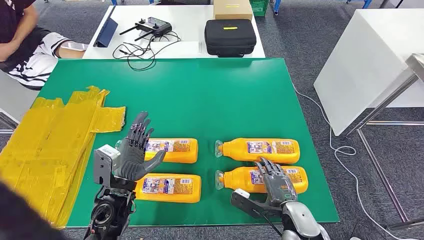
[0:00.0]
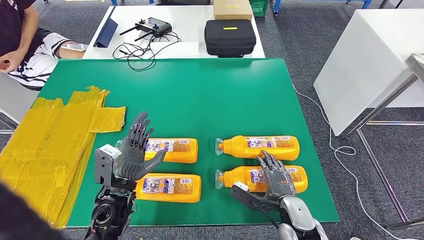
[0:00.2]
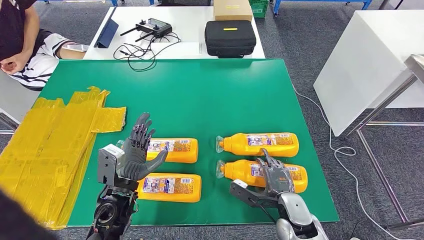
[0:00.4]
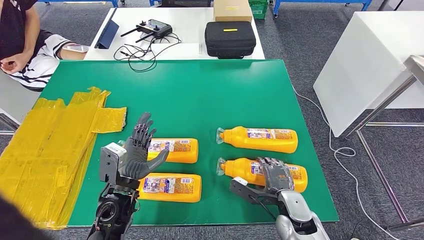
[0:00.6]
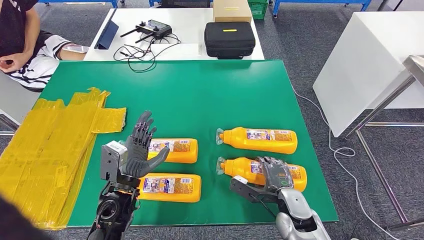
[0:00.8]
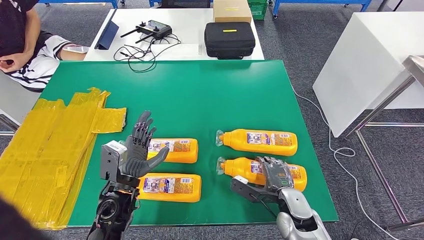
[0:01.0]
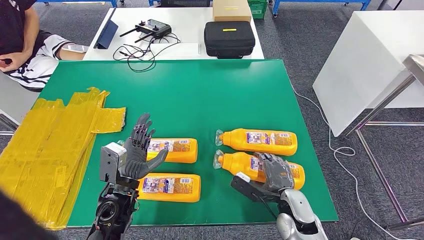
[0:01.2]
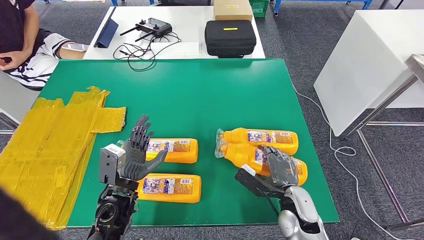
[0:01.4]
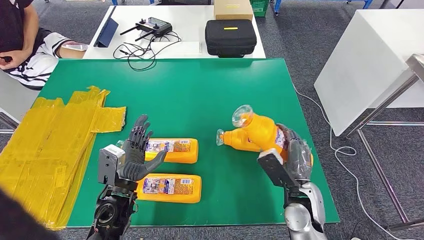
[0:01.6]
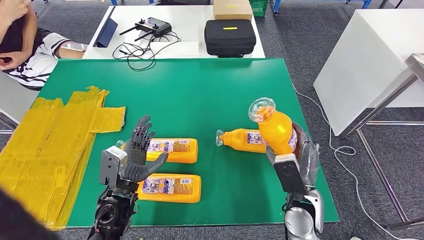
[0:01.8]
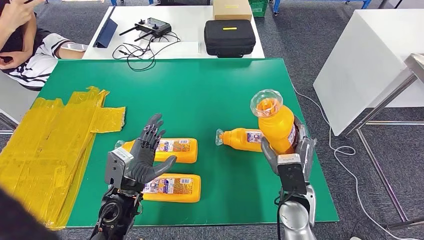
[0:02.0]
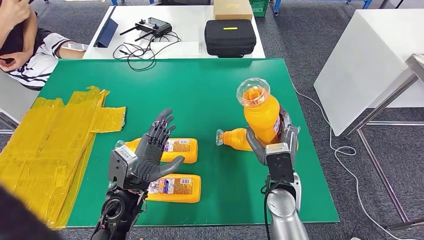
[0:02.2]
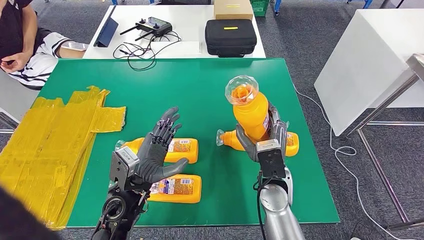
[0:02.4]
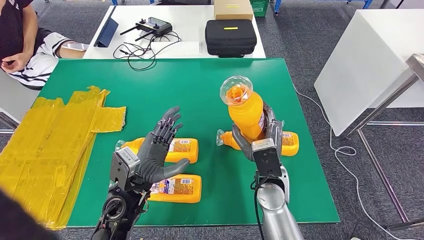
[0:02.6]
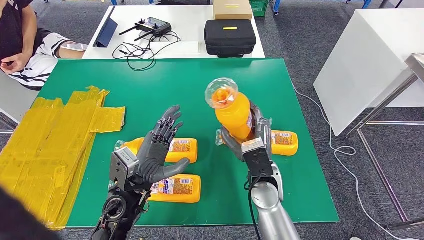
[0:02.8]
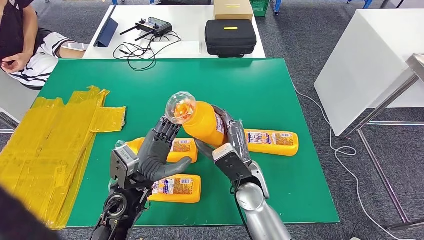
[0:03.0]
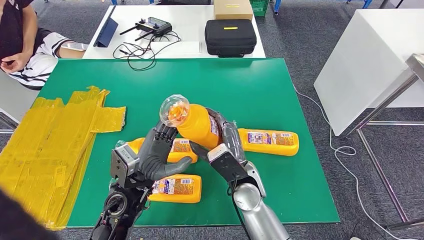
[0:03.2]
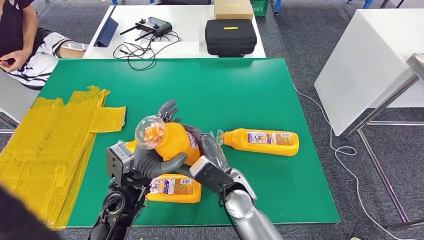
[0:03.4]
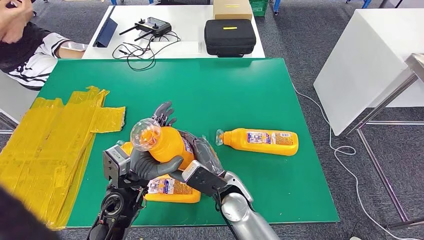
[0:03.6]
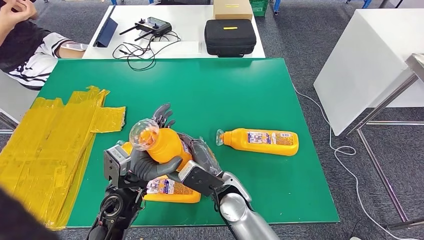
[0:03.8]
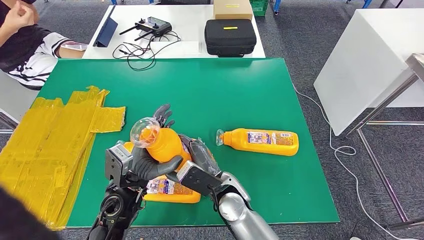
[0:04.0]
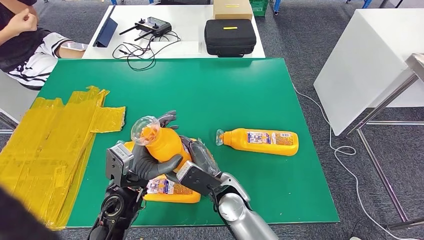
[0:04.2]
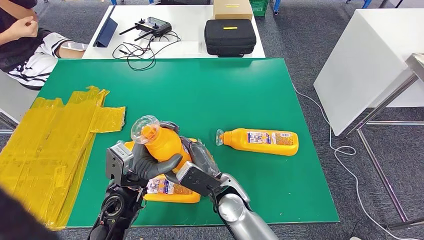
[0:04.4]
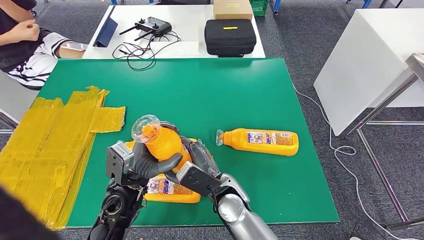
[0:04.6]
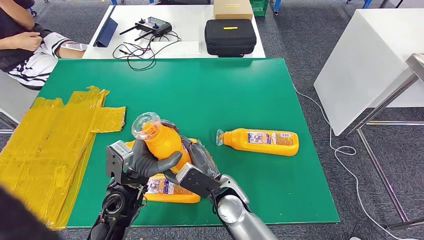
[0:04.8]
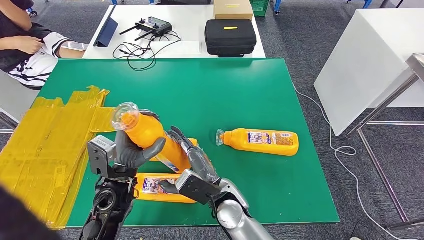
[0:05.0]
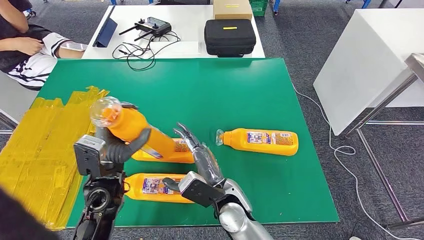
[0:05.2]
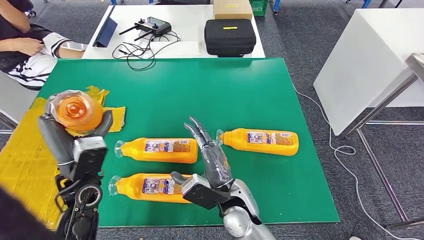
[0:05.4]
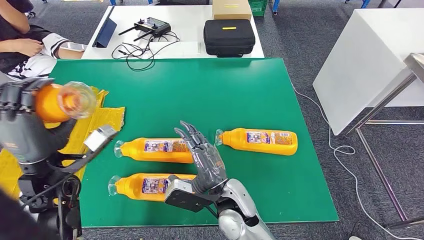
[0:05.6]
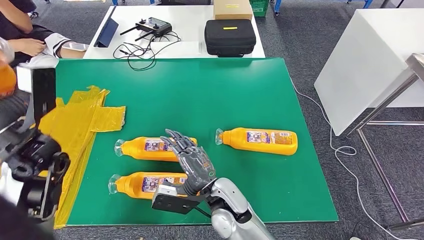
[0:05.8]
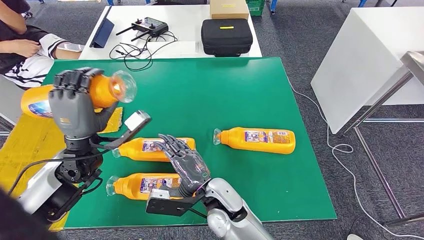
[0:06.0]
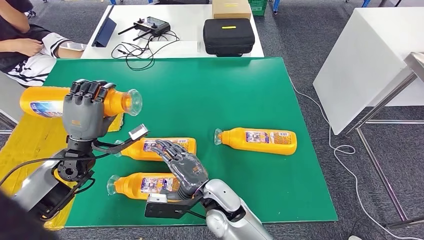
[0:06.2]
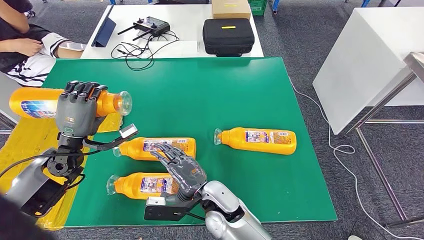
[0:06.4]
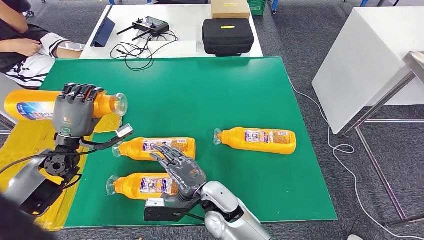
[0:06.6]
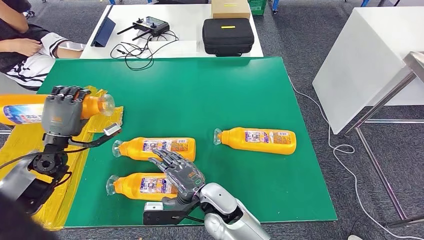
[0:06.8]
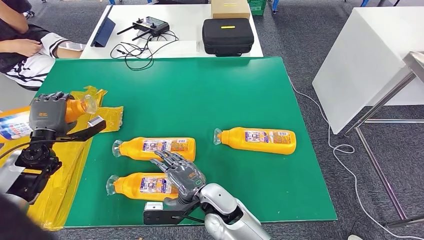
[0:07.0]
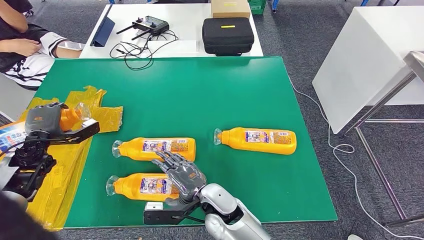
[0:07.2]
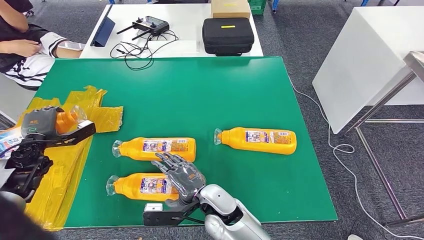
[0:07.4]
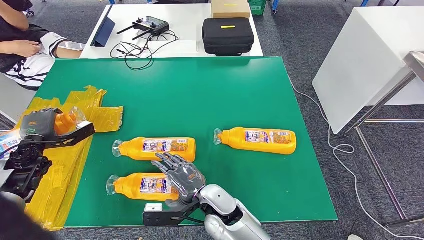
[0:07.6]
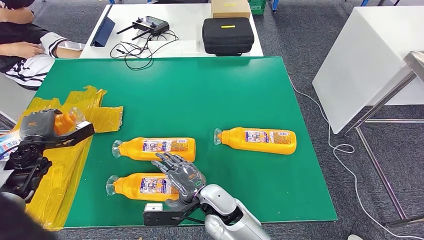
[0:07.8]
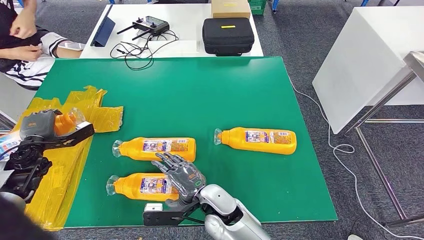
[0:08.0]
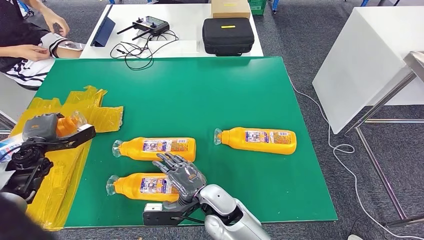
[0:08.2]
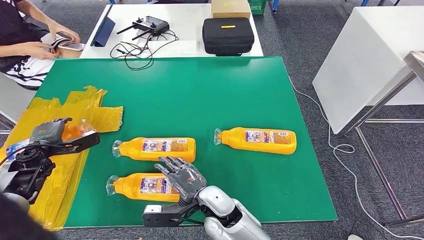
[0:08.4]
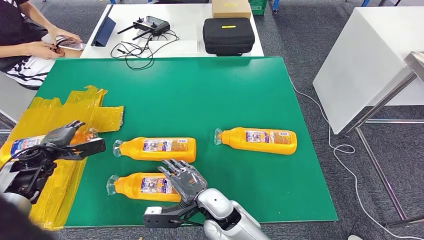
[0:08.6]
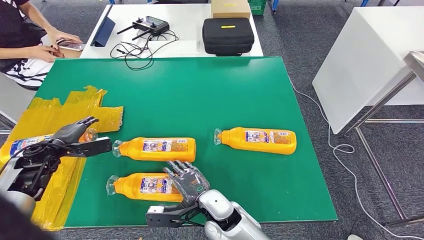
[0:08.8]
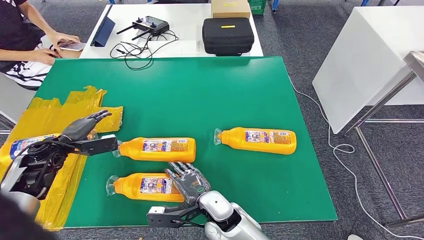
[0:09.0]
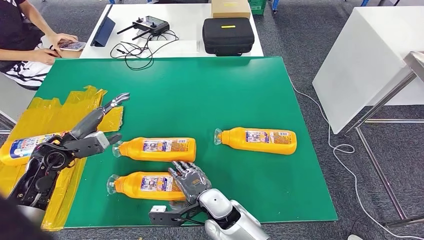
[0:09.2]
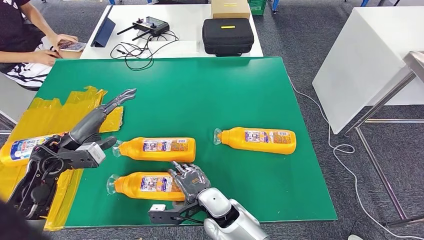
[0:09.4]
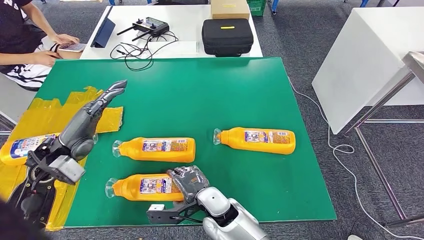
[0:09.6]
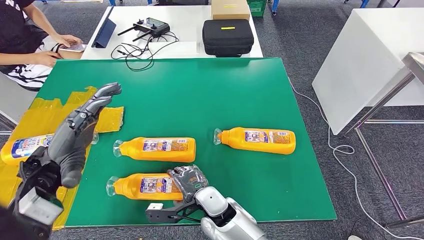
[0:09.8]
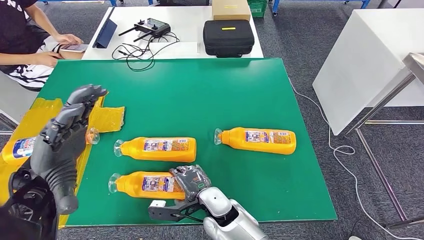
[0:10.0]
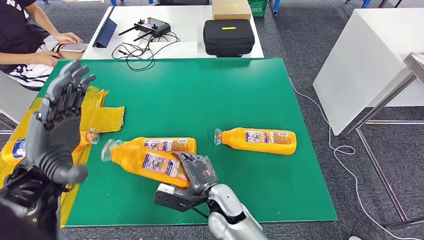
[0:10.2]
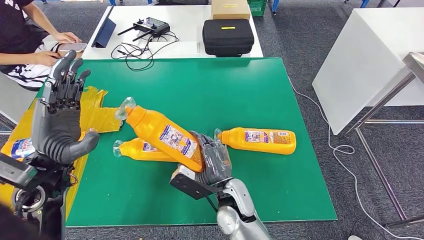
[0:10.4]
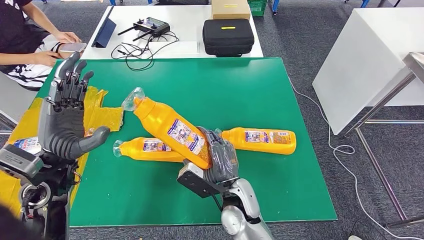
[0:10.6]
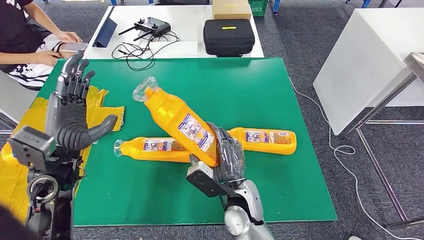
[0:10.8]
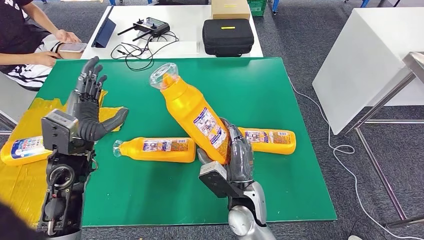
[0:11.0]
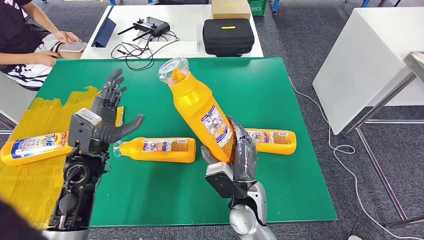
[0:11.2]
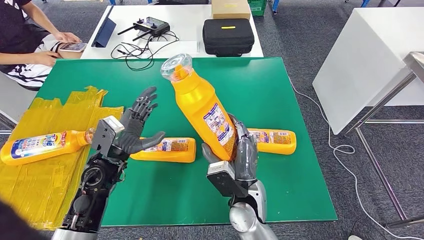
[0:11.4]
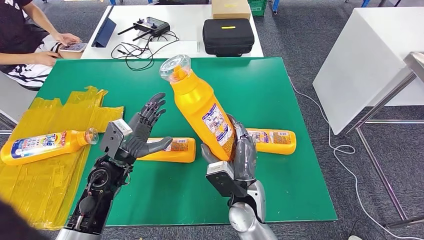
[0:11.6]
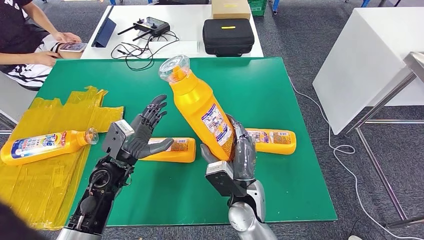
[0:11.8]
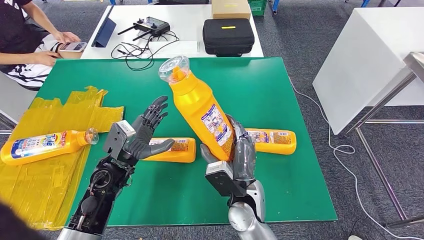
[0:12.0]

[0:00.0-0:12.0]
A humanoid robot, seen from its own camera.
Step, 0:00.0 to 0:02.8: Take the fast-moving consumer goods bottle from the table.
Step, 0:03.4 to 0:09.4: Flip the fast-moving consumer goods bottle to the front side.
0:01.6 to 0:03.0: The left hand moves approximately 5 cm, while the right hand goes some 15 cm to the left.
0:03.0 to 0:04.4: The right hand changes place by approximately 5 cm.

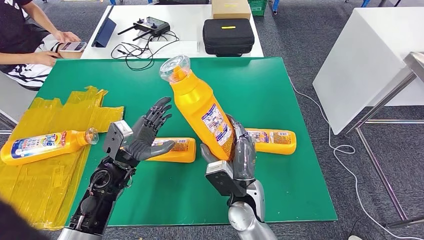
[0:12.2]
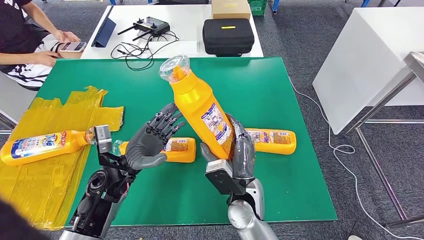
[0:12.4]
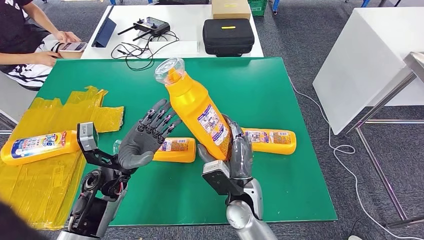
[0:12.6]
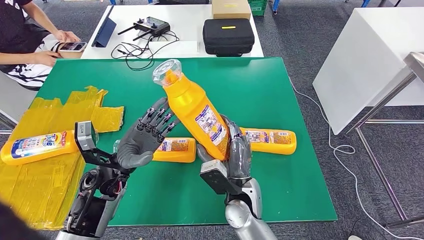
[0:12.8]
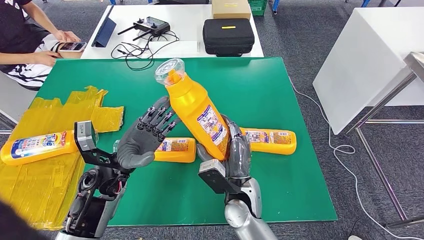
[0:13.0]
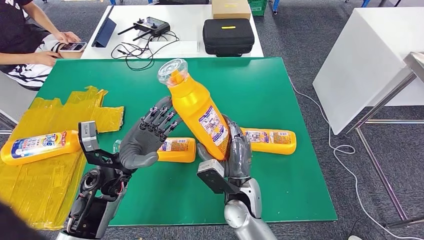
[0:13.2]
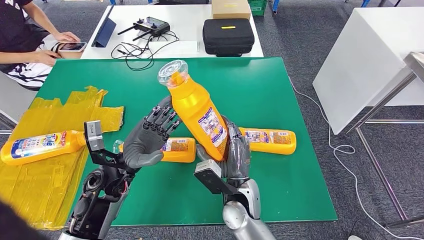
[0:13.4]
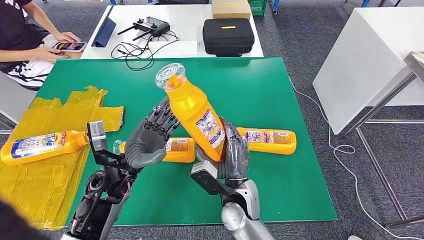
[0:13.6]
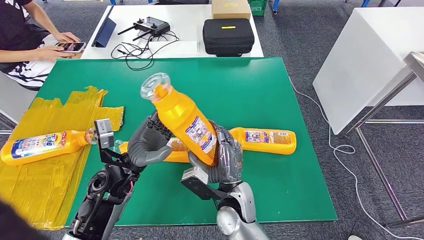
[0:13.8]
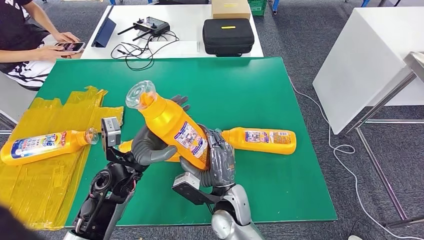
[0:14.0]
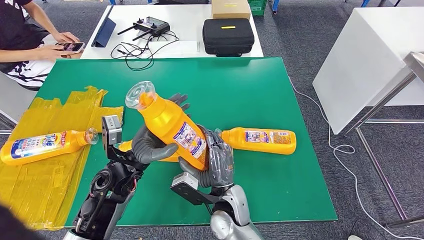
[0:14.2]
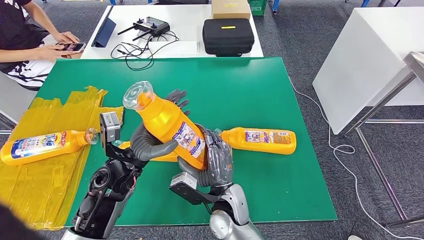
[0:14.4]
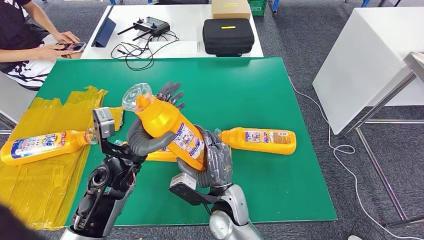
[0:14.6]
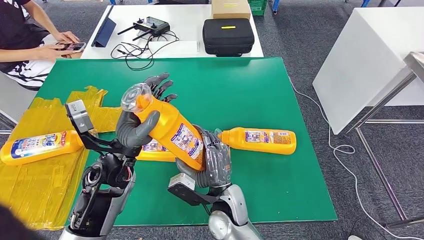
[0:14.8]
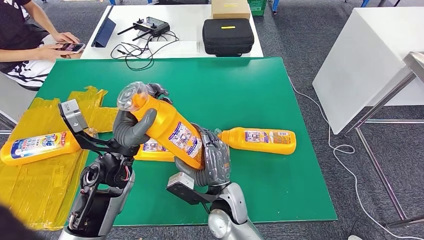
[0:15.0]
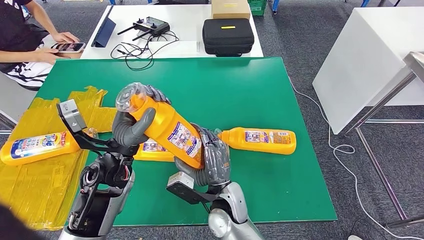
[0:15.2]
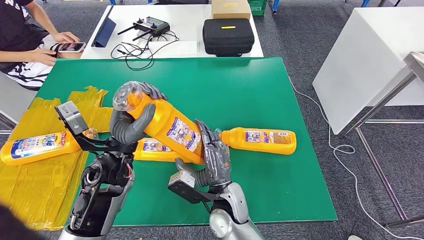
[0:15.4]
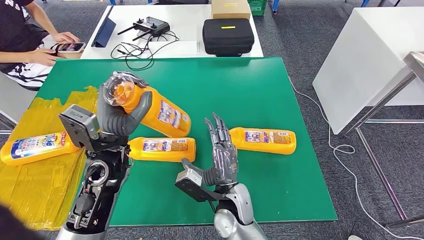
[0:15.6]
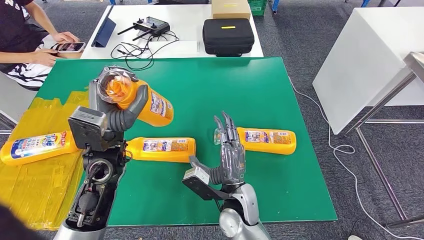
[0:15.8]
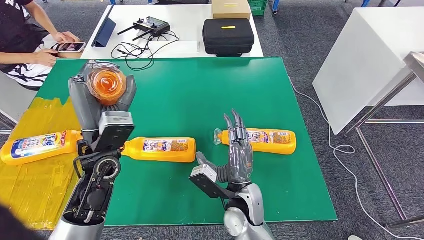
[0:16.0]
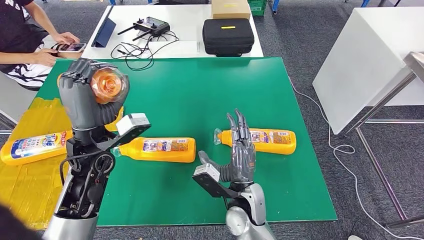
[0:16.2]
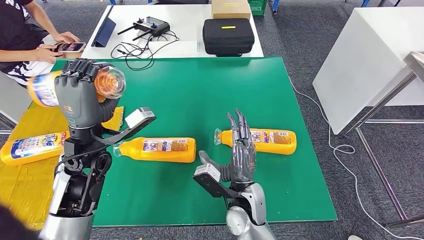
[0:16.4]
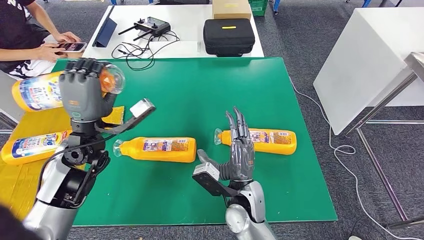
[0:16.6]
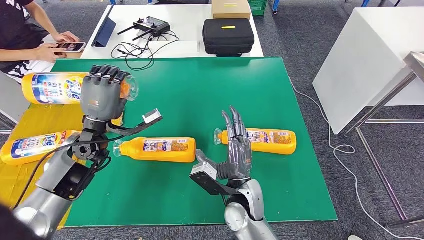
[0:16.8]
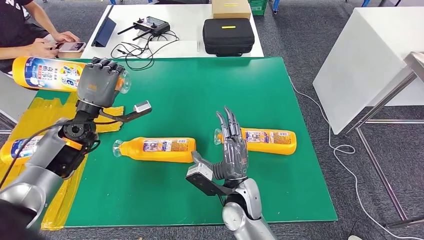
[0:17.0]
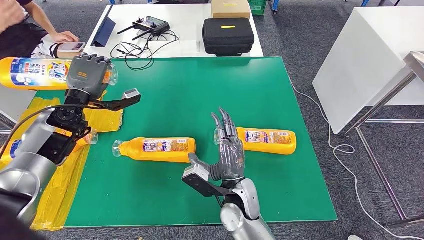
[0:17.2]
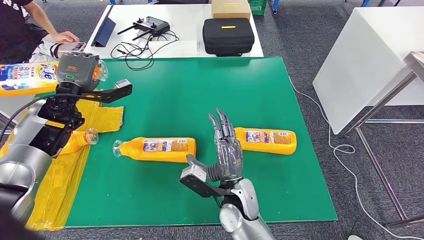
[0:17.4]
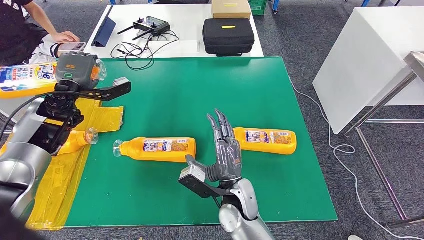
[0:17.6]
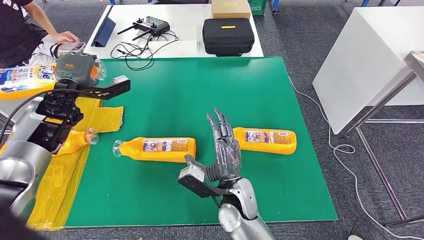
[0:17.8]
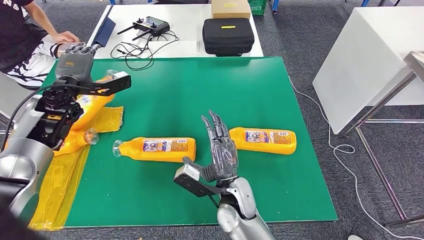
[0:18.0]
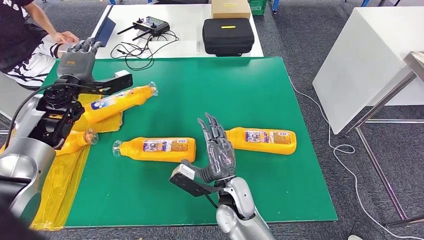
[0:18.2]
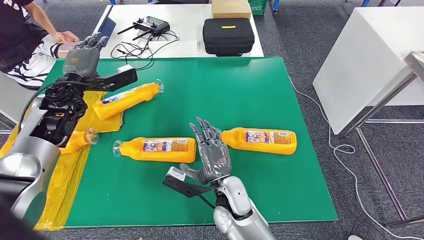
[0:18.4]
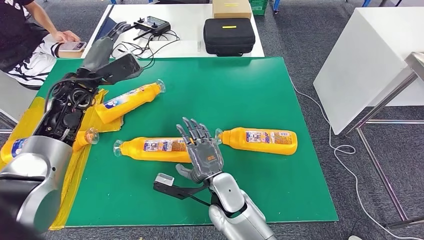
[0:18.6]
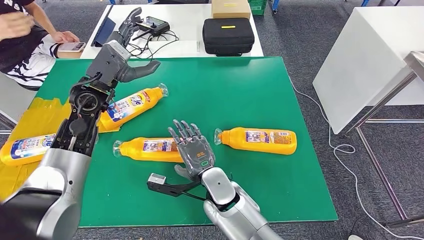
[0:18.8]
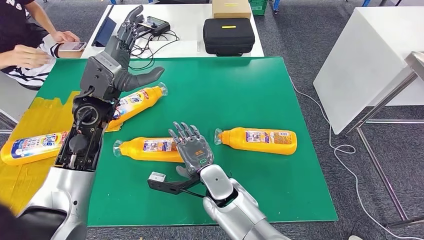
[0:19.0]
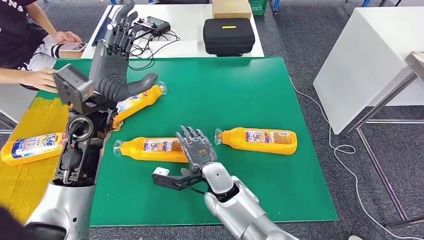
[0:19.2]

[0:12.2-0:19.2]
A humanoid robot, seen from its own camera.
Step, 0:13.6 to 0:18.8: Flip the fast-moving consumer goods bottle to the front side.
0:13.6 to 0:15.0: The left hand moves some 5 cm.
0:15.0 to 0:16.4: The left hand travels to the left by roughly 5 cm.